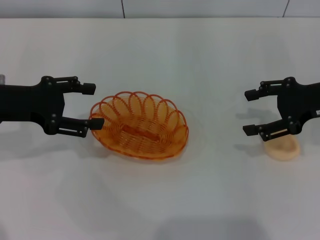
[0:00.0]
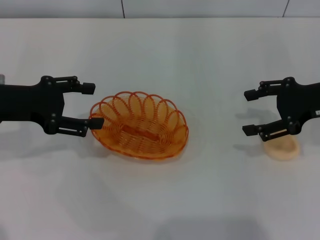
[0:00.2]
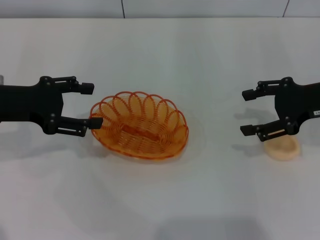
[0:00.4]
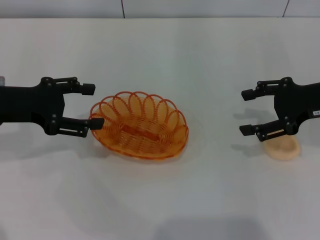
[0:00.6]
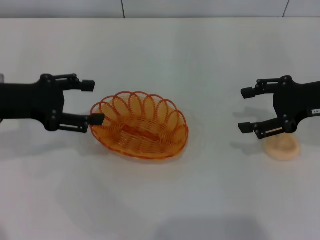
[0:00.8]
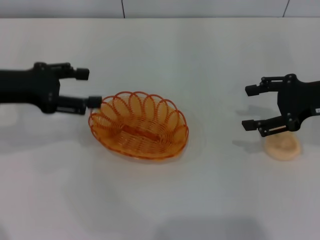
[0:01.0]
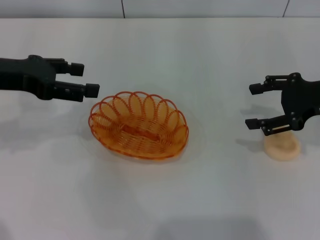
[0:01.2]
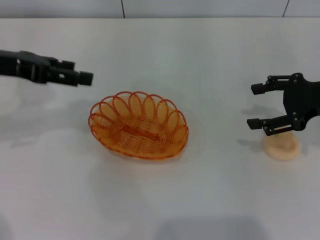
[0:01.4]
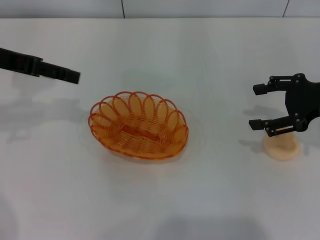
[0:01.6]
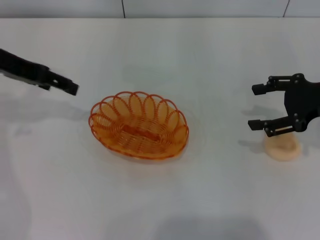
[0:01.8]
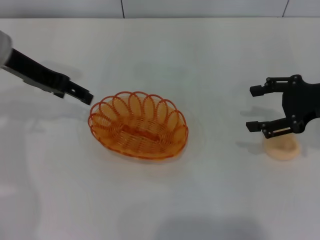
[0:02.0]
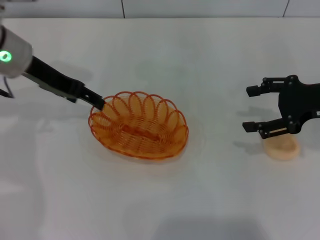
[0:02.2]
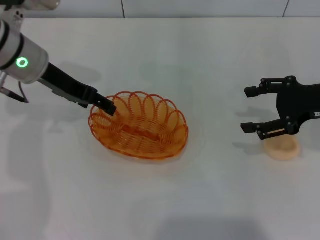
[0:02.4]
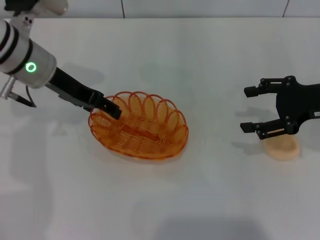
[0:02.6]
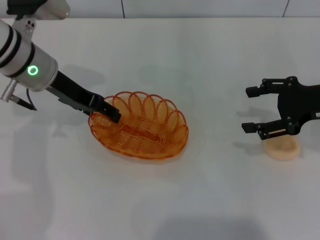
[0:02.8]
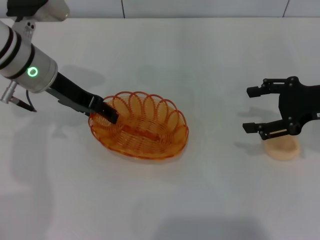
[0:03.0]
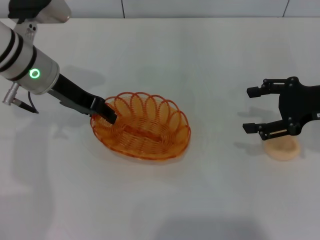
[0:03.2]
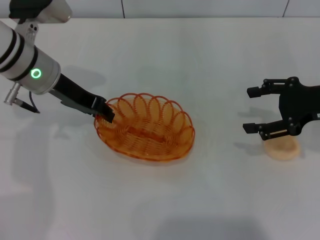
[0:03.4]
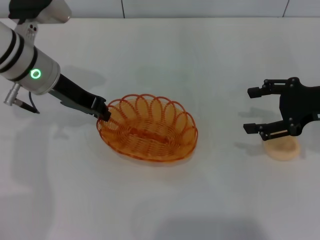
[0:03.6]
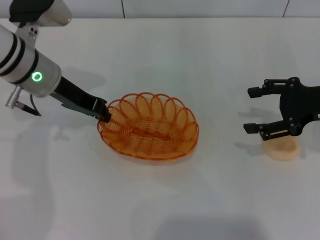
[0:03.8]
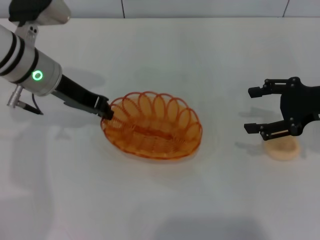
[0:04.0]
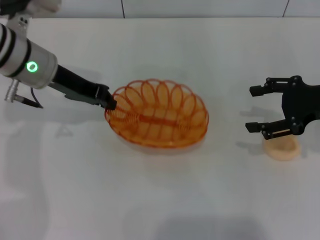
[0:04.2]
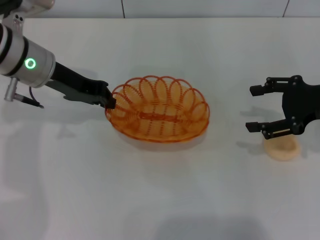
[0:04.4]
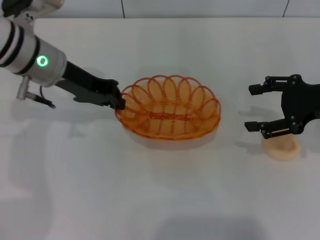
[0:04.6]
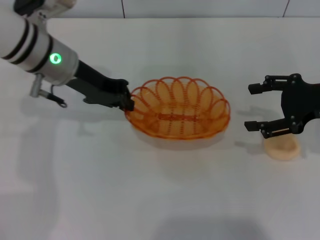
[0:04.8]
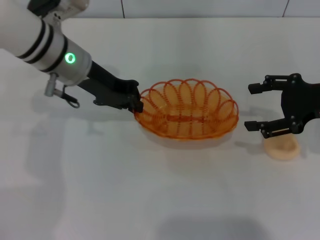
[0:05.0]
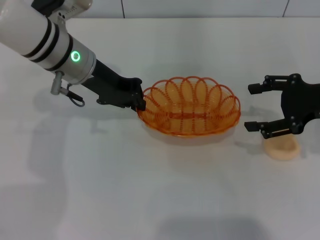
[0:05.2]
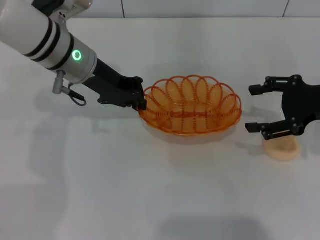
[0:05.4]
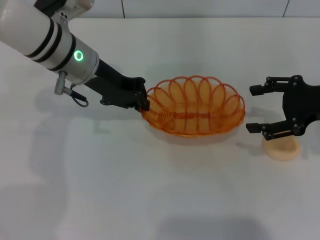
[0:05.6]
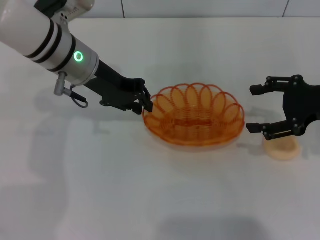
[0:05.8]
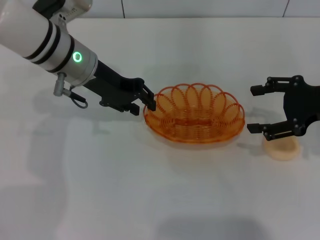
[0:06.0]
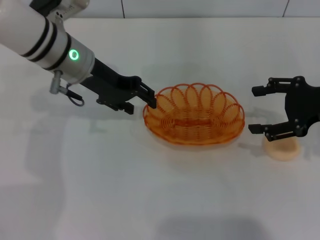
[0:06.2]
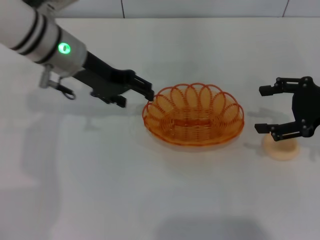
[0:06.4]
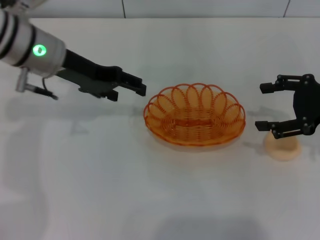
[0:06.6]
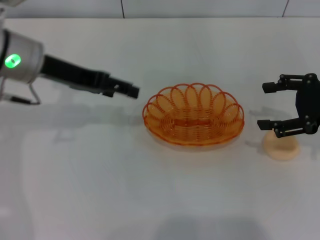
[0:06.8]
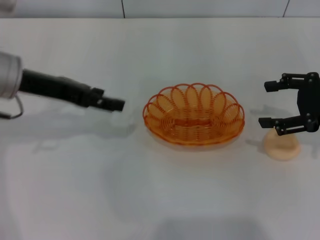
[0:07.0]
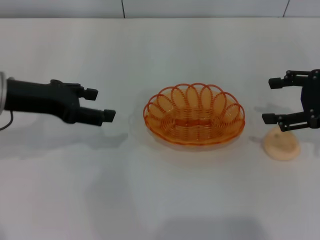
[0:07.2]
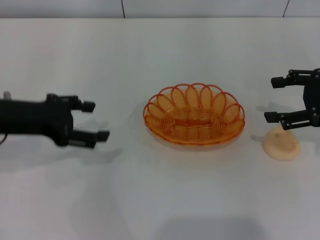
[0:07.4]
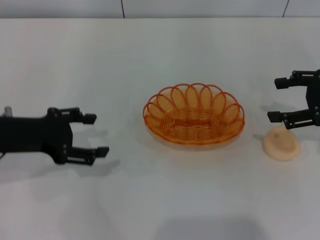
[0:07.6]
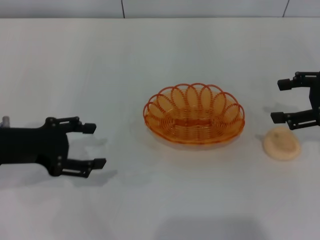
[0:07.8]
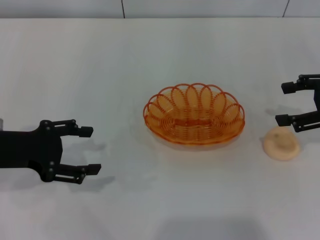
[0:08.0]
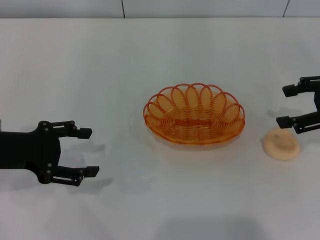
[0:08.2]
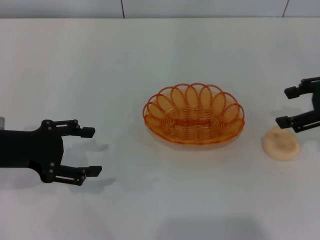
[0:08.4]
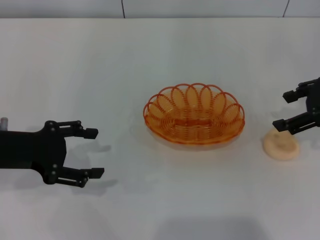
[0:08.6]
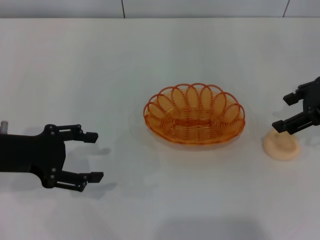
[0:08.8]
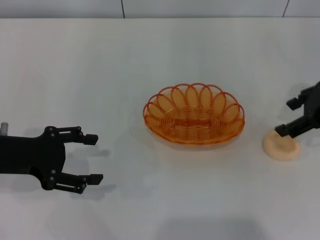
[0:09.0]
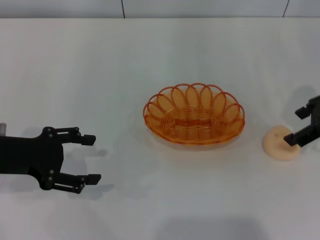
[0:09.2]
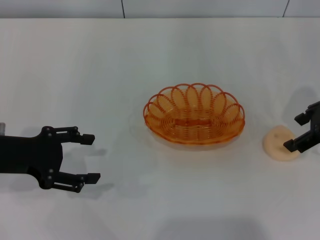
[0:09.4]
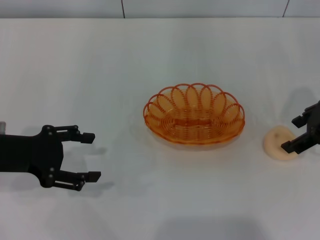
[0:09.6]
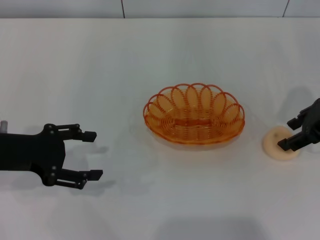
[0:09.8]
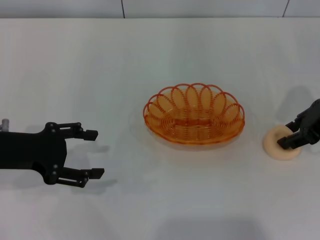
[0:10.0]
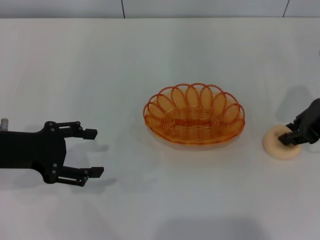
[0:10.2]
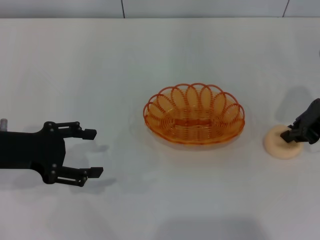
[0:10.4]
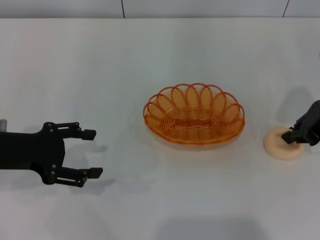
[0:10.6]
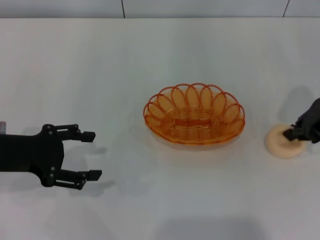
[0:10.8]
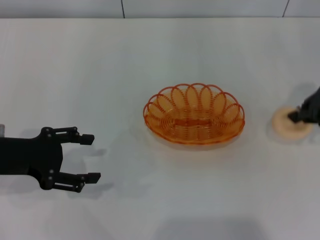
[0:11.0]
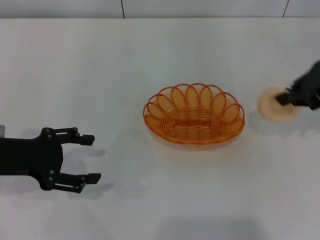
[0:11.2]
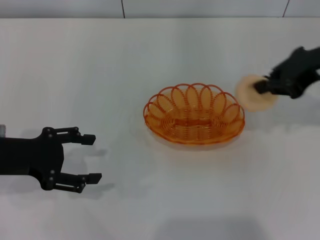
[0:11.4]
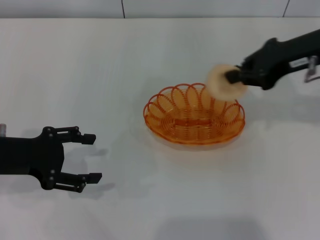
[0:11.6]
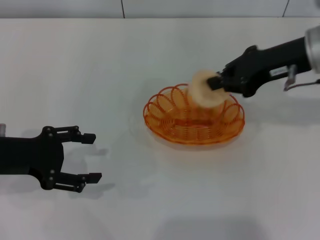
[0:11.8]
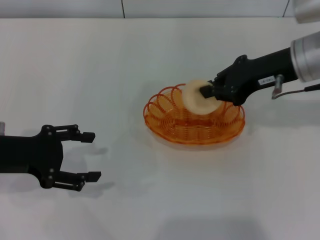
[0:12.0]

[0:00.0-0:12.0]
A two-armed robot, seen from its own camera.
Step, 0:00.0 to 0:04.4: Pick up the basket with the left gripper.
Step, 0:04.6 to 0:06.6: Place the basket in the center of view with the left gripper.
Step, 0:06.8 to 0:11.2: Pick up the egg yolk pastry with the right gripper.
0:00.0 to 0:01.6: The left gripper moves upward, roughly 5 cm.
0:01.6 to 0:03.0: The left gripper goes approximately 10 cm to the right and downward.
0:03.0 to 0:04.4: The left gripper closes.
0:04.4 to 0:06.0: The left gripper heads to the right, covering some 5 cm.
0:06.0 to 0:07.6: The left gripper heads to the left and backward, covering approximately 15 cm, and opens up.
0:07.6 to 0:09.0: The right gripper shifts by about 5 cm.
0:09.0 to 0:10.4: The right gripper closes its fingers.
0:10.4 to 0:12.0: The right gripper is displaced to the left by some 5 cm.

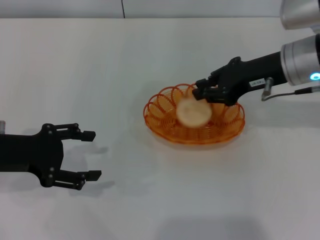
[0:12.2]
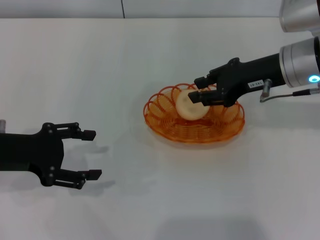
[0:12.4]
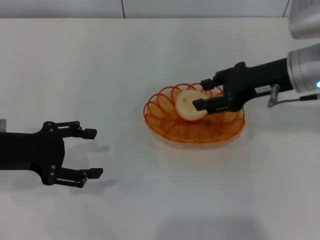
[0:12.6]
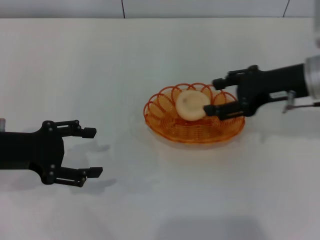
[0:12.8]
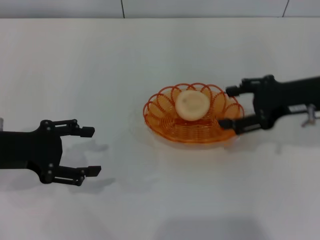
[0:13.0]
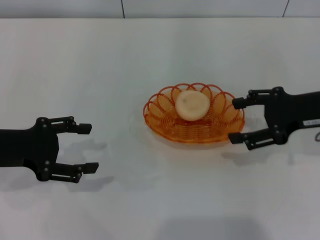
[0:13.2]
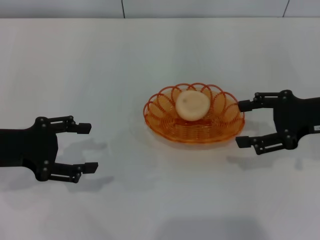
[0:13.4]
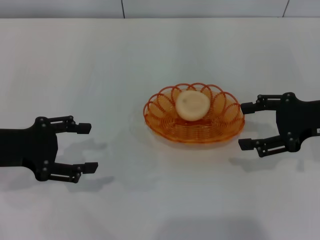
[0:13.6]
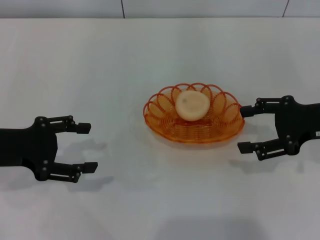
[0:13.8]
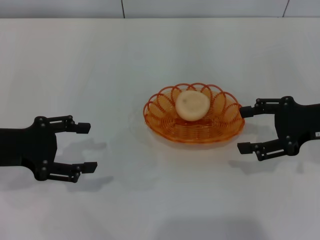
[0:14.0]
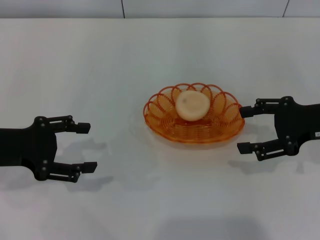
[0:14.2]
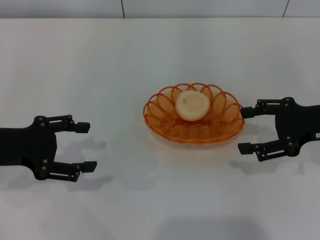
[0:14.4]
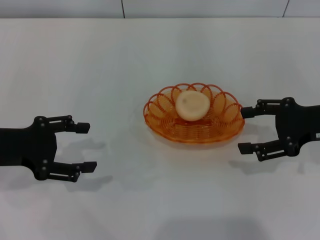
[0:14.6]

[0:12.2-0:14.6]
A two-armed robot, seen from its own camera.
Step, 0:12.2 to 0:13.2: Place the egg yolk pastry into the basket with the right gripper.
0:12.2 to 0:13.4: The right gripper shifts some 10 cm to the right and backward, and opens up.
0:13.4 to 0:14.6: Neither gripper changes place.
